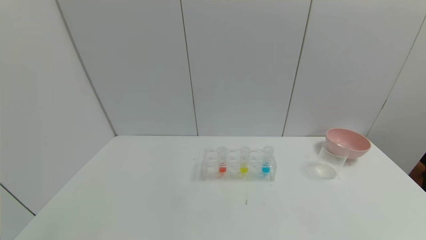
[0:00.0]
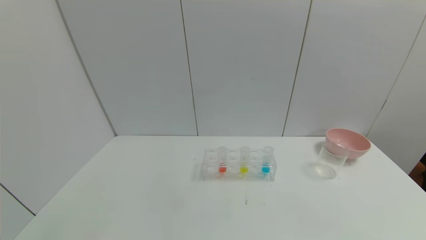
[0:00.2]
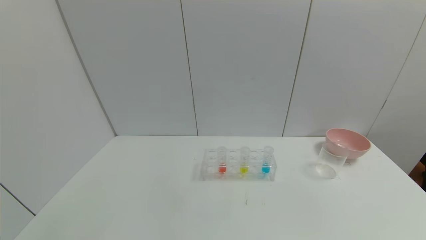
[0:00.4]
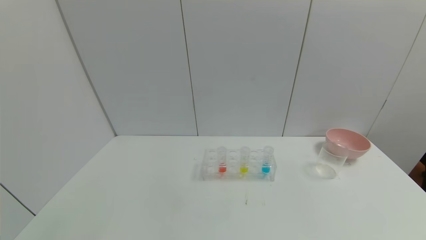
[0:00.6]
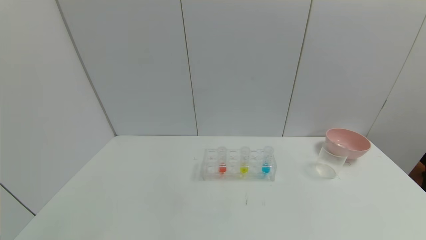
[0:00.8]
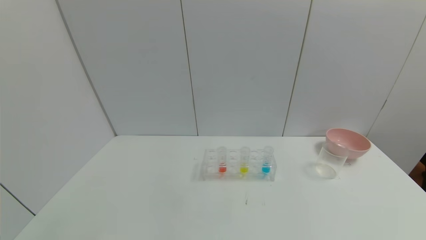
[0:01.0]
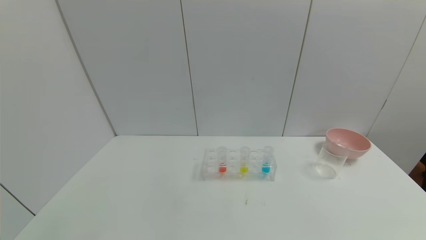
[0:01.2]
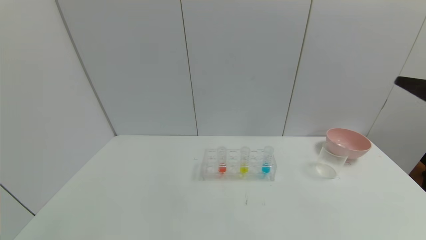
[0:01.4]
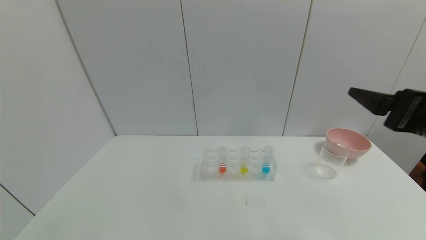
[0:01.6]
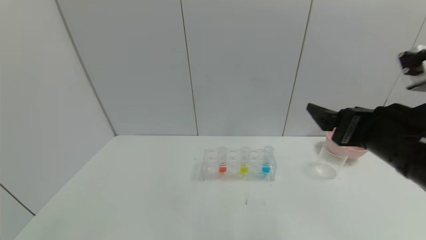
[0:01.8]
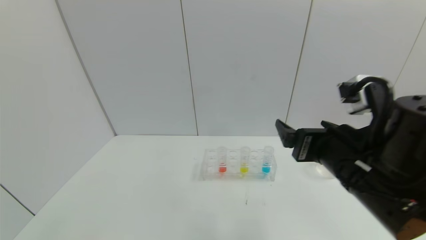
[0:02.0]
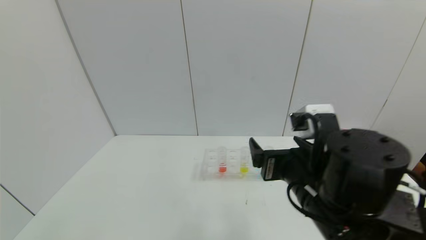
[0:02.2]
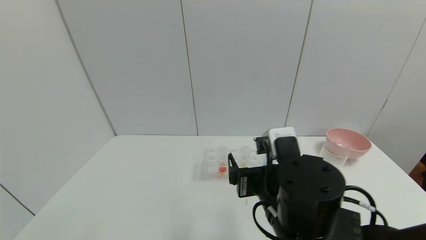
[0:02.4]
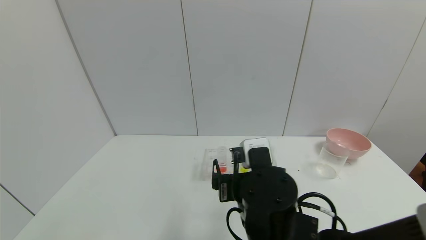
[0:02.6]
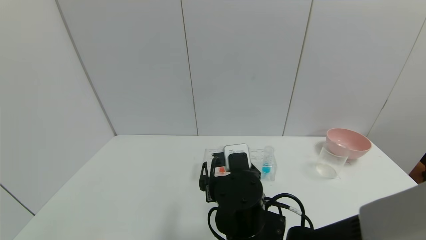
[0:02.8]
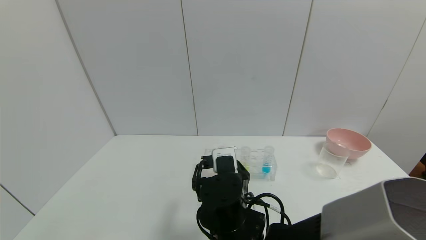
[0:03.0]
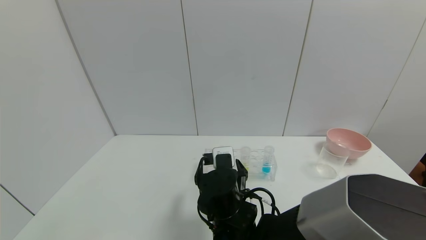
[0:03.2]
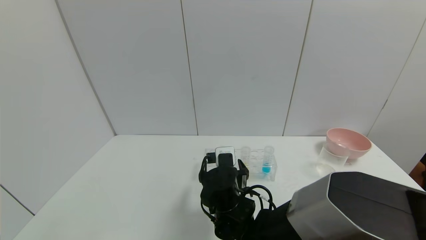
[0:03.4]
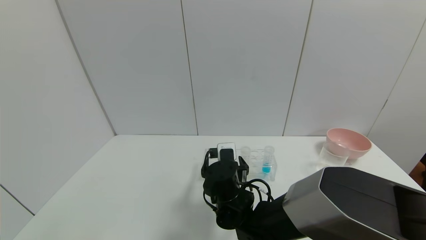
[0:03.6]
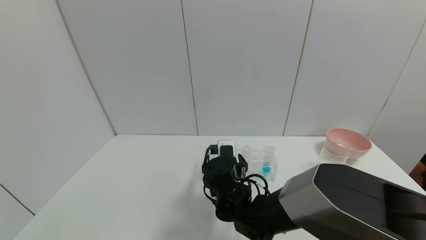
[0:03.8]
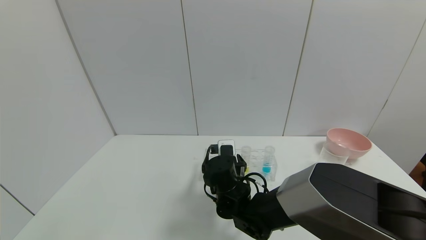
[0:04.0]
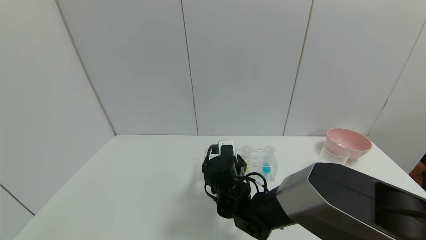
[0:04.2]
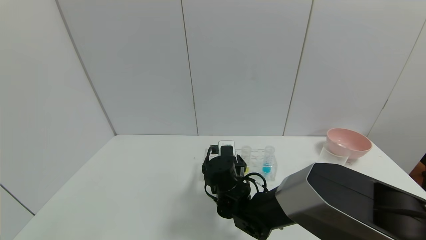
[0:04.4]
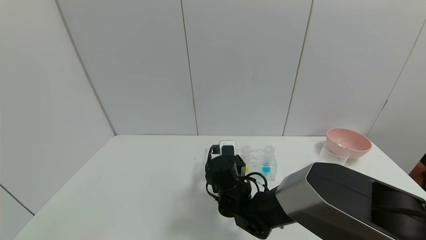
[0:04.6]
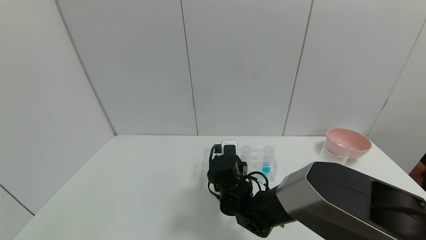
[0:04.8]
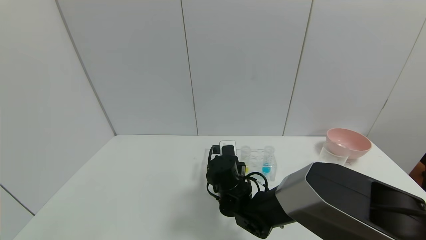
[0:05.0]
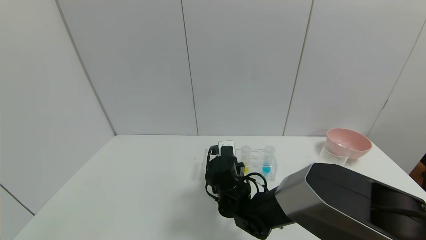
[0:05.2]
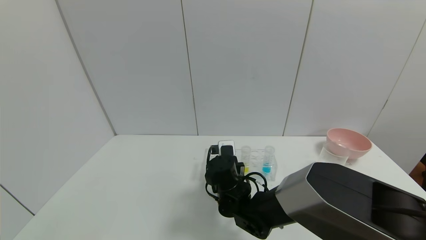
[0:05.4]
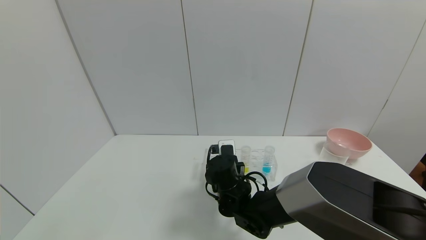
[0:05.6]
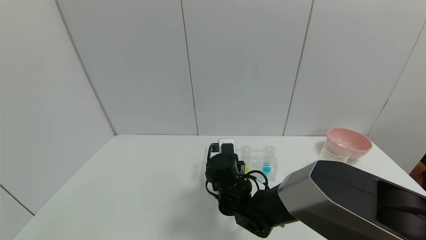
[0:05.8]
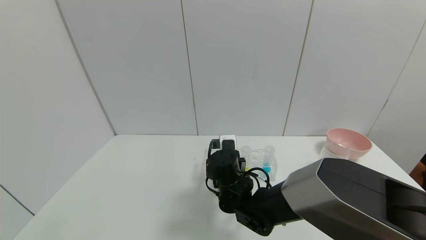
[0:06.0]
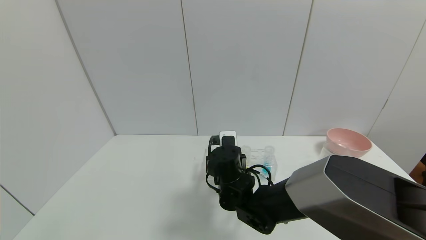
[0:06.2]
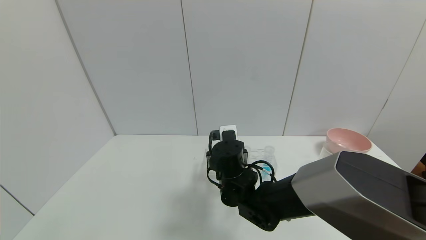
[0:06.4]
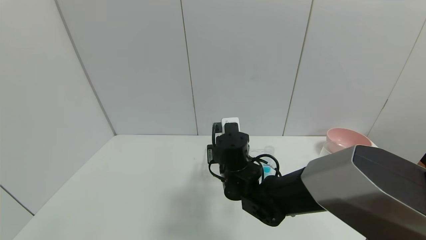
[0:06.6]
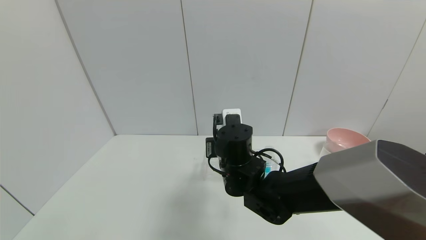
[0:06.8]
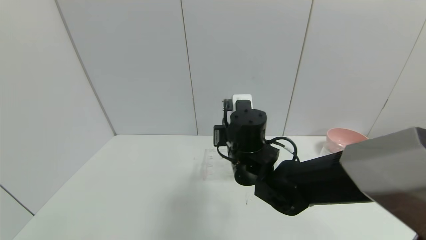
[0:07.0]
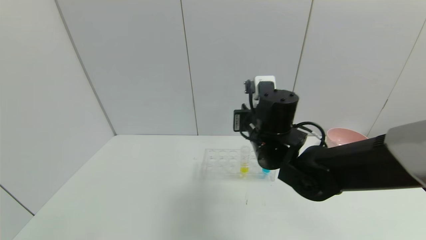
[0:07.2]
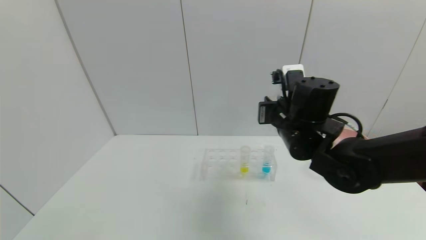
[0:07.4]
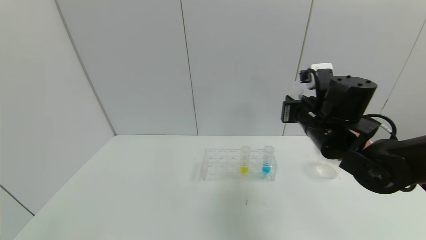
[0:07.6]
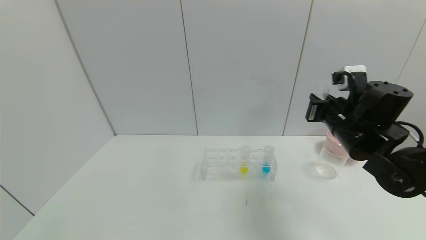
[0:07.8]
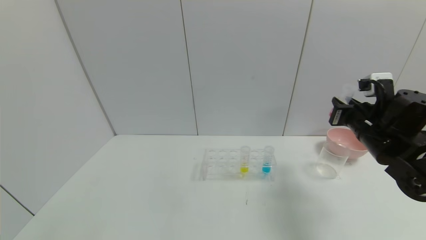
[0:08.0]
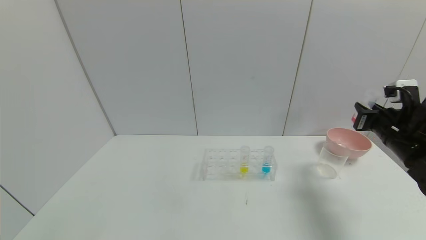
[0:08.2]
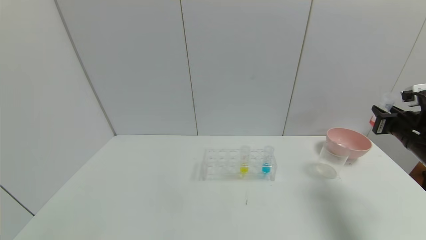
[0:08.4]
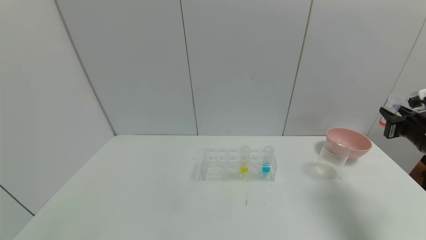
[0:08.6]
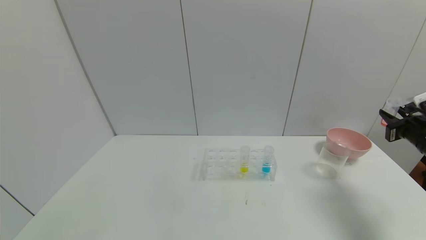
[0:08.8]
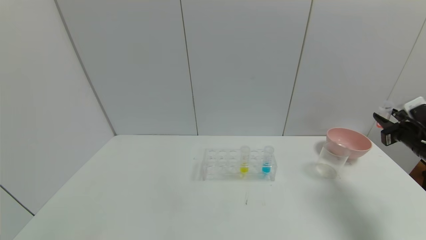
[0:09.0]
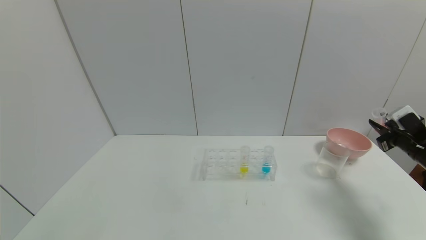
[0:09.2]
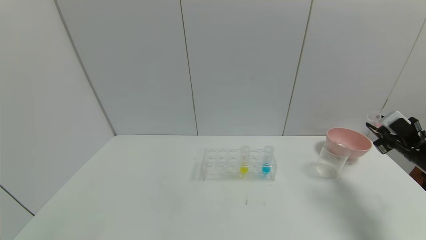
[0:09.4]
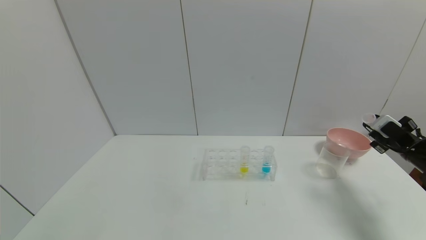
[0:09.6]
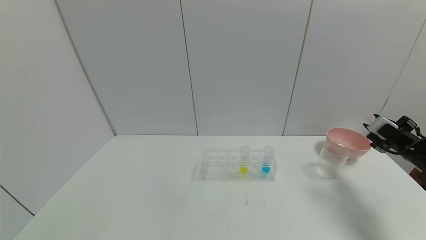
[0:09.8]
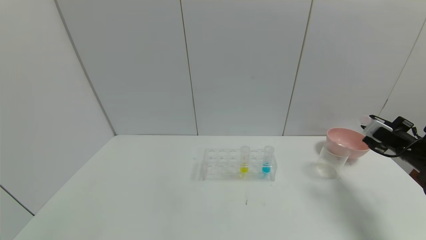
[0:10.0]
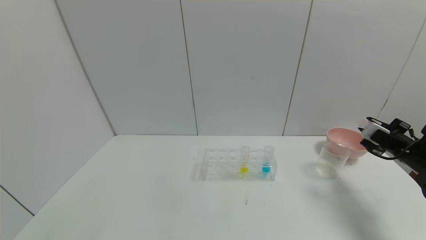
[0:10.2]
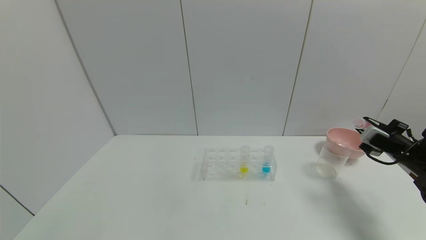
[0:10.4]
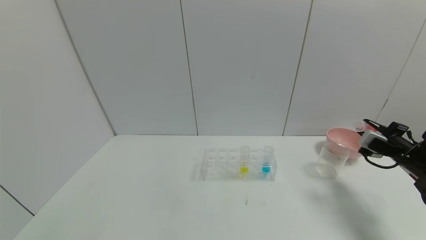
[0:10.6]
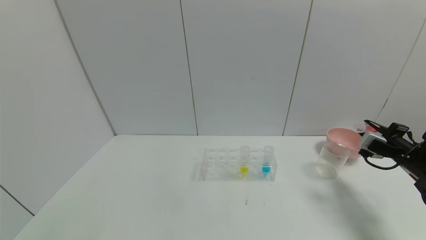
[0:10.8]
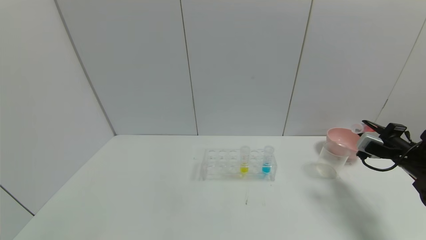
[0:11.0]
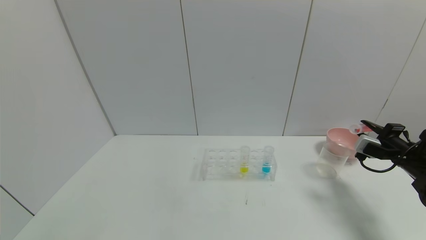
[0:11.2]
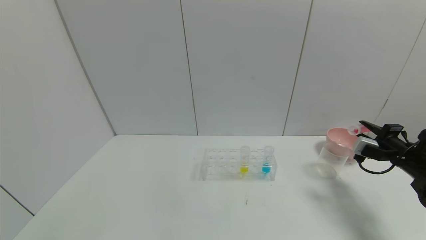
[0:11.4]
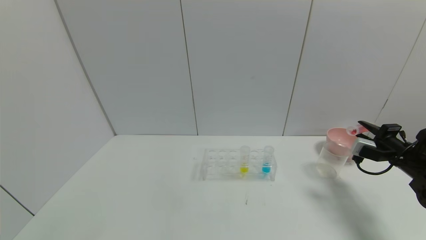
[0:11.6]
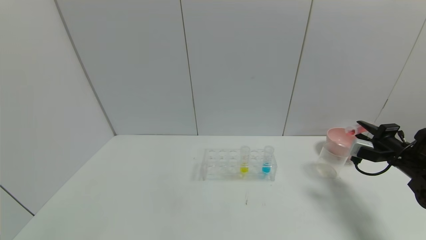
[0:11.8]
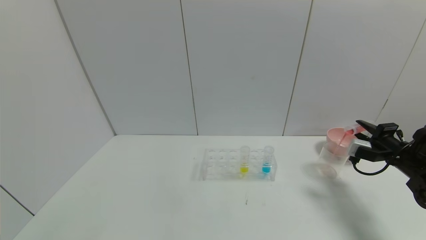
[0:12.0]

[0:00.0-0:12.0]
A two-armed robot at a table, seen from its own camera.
Task of the whole recording: pick up the test tube with yellow pigment and the test tube with red pigment by grippers and pour them into the beaker.
Step, 0:00.0 to 0:05.0: Grasp the red reagent with the right gripper.
0:00.0 to 0:01.6: The right gripper moves forward, upward and to the left, roughly 30 cm.
0:01.6 to 0:03.0: The right gripper moves to the left and downward, some 30 cm.
0:03.0 to 0:04.4: The right gripper heads forward and downward, covering about 10 cm.
0:04.4 to 0:06.0: The right gripper closes.
0:06.0 to 0:07.6: The right gripper travels to the right and upward by some 25 cm.
0:07.6 to 0:09.0: The right gripper moves to the right, some 25 cm.

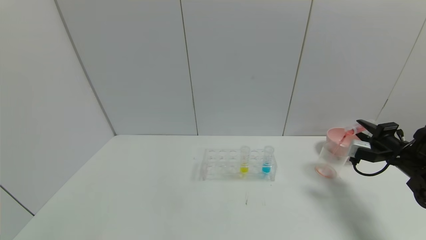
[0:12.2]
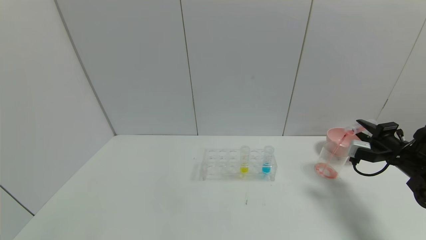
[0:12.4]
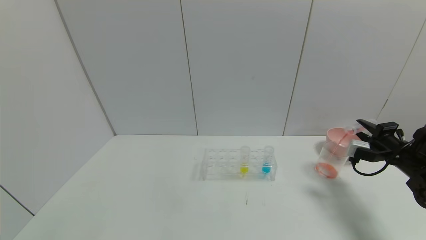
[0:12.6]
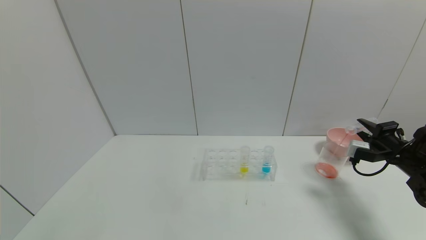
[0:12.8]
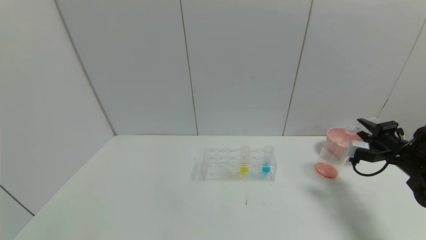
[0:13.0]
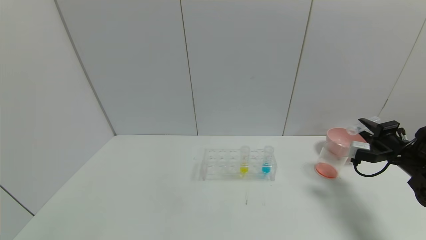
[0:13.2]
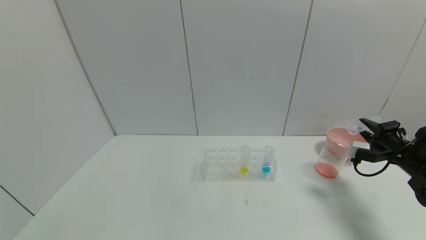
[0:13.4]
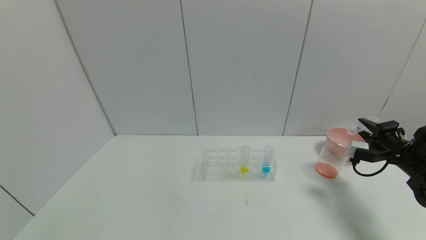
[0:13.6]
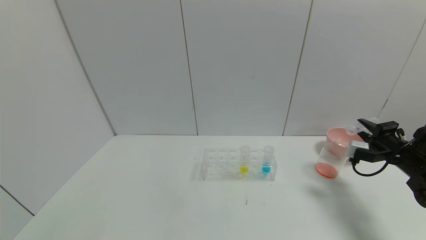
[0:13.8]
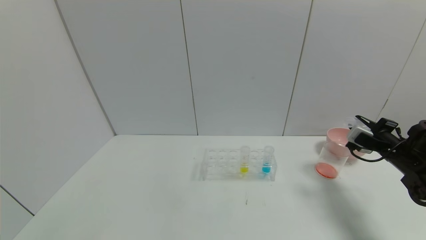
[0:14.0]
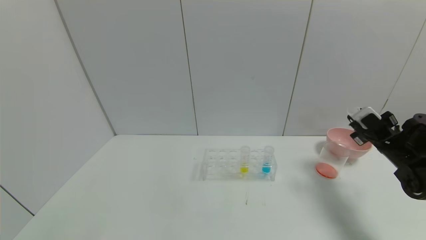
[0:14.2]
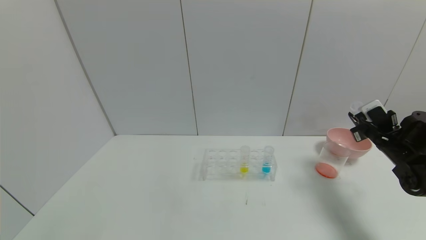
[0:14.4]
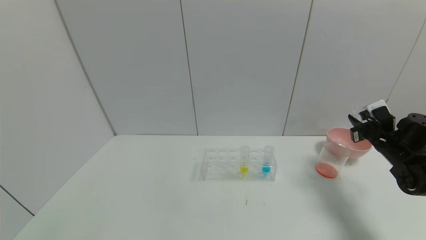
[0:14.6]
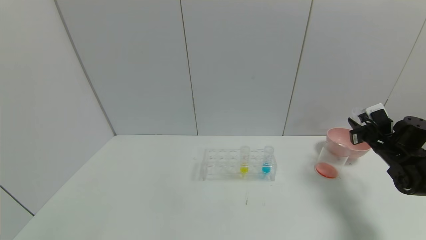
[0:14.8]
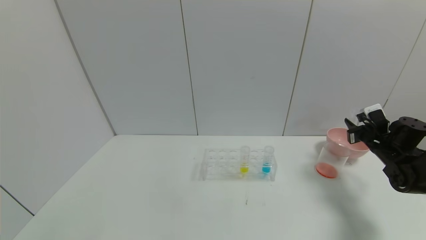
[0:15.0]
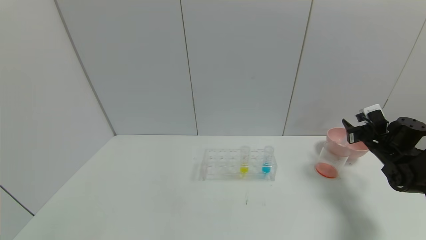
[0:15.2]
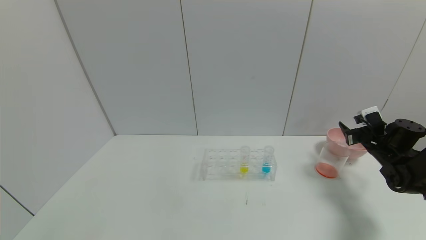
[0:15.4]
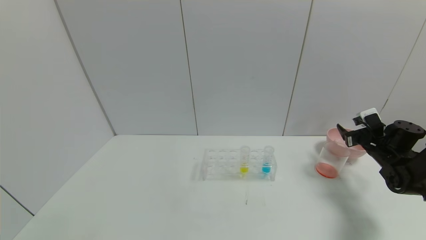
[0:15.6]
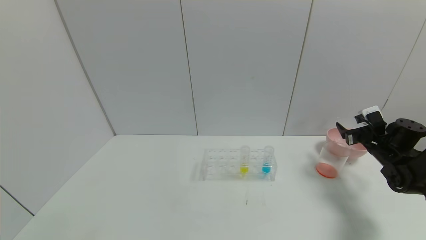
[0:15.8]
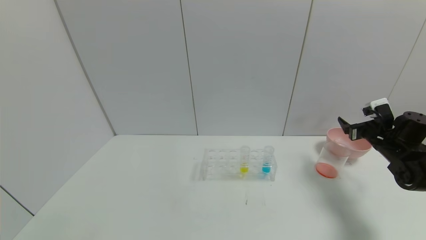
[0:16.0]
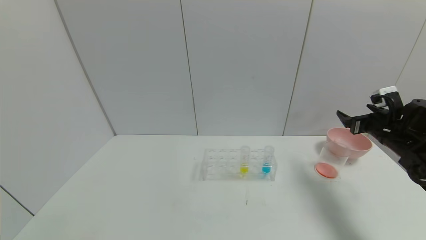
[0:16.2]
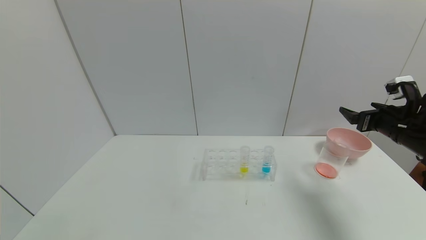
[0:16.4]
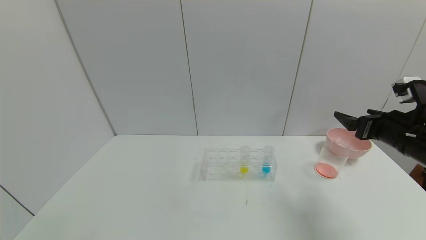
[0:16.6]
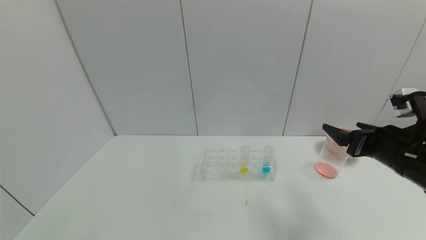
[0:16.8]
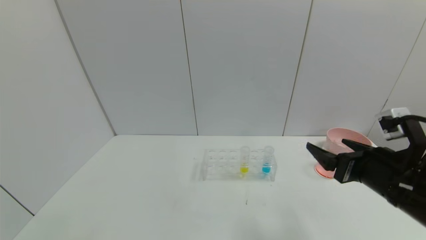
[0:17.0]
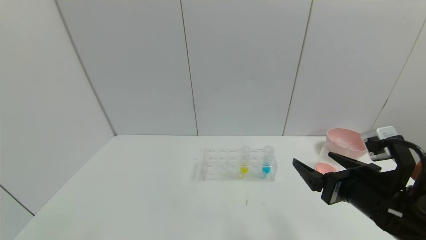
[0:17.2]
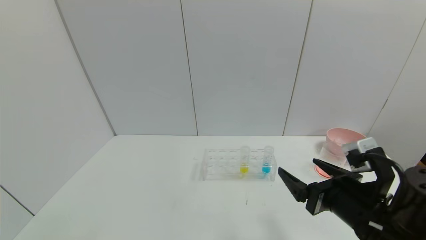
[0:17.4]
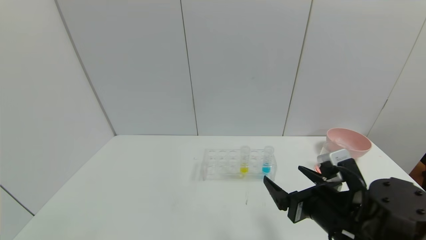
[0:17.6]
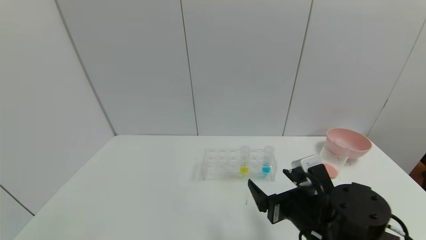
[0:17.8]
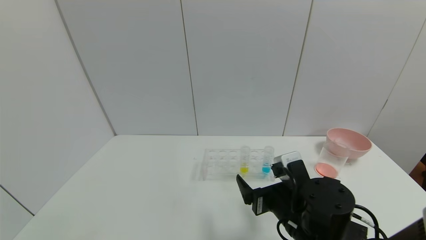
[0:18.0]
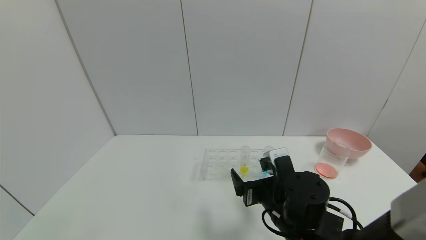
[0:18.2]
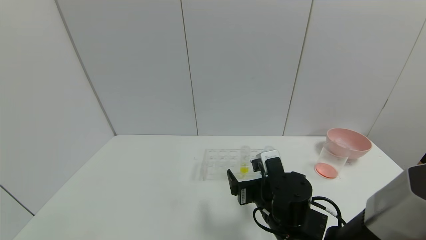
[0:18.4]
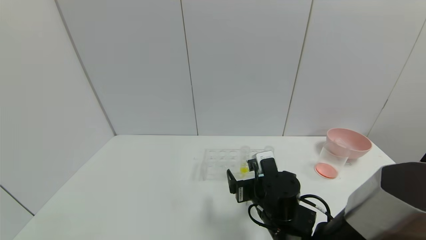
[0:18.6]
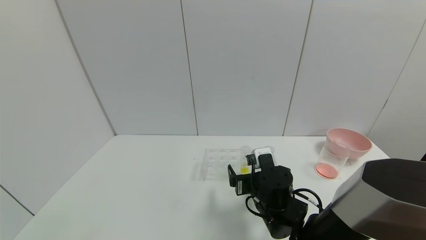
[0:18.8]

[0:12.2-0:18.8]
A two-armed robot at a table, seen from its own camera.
Task of the whole recording: pick up the test tube with yellow pigment and the test tube with red pigment by grippers and pour them into the beaker.
Step, 0:13.8 to 0:15.4: Place the test tube into the bowl with the right gripper.
0:13.8 to 0:15.4: The right gripper shifts approximately 5 cm forward, and opens up.
0:15.4 to 0:17.2: The right gripper is displaced backward and to the left by approximately 30 cm, and opens up.
0:17.2 to 0:18.8: The right gripper goes about 20 cm to the left, downward and forward.
